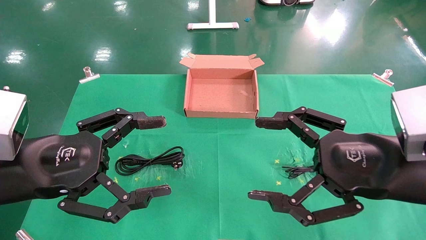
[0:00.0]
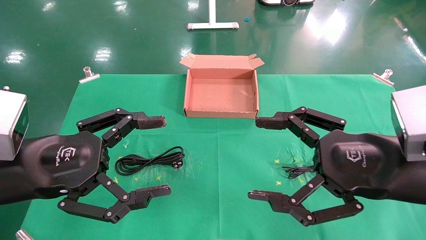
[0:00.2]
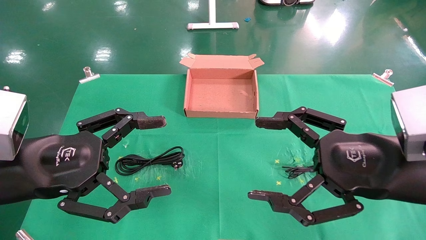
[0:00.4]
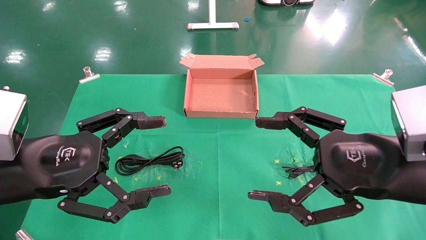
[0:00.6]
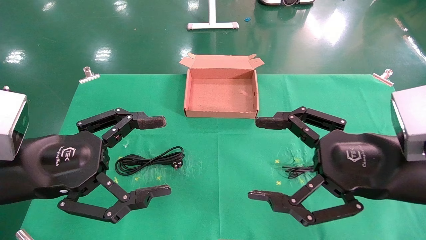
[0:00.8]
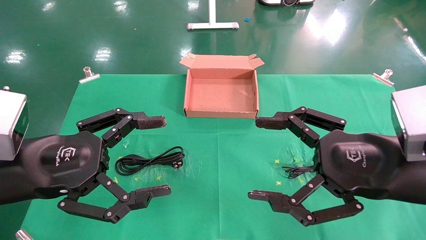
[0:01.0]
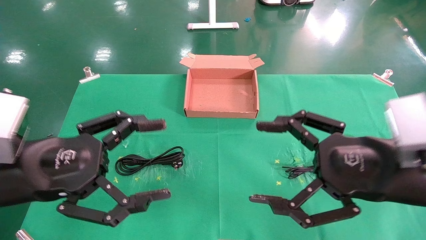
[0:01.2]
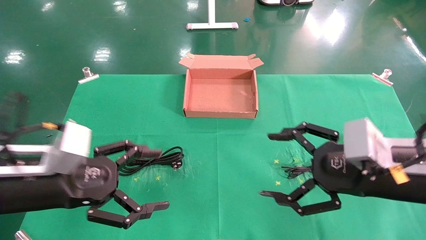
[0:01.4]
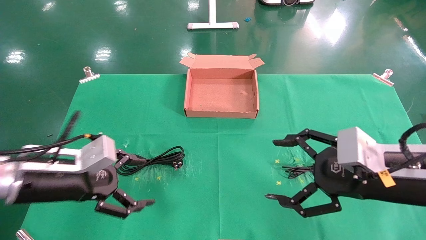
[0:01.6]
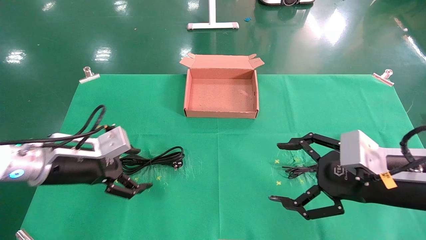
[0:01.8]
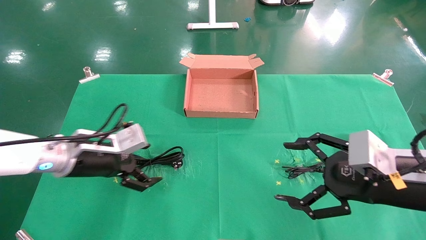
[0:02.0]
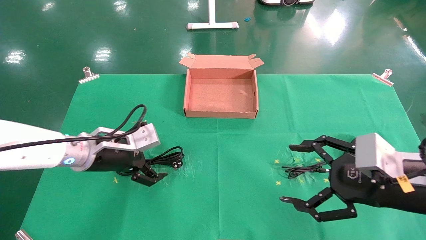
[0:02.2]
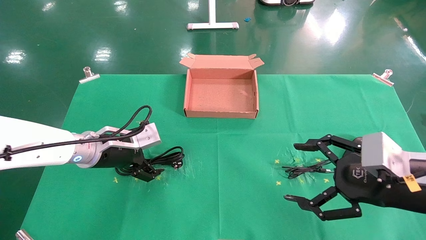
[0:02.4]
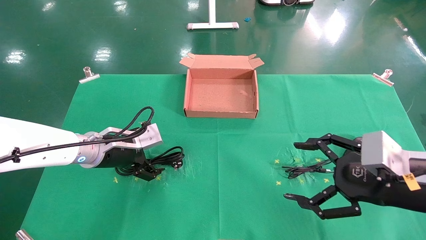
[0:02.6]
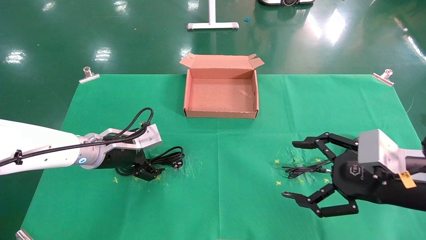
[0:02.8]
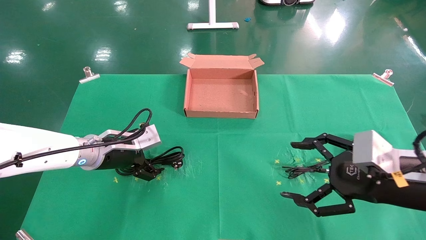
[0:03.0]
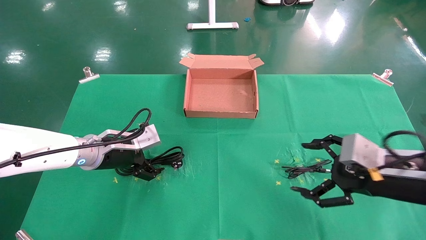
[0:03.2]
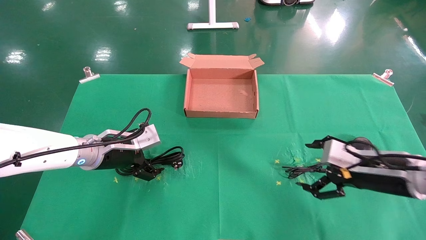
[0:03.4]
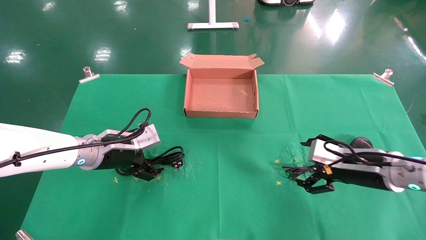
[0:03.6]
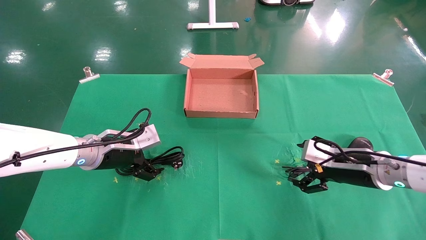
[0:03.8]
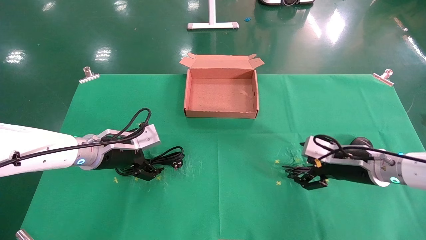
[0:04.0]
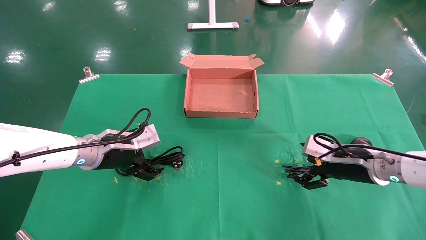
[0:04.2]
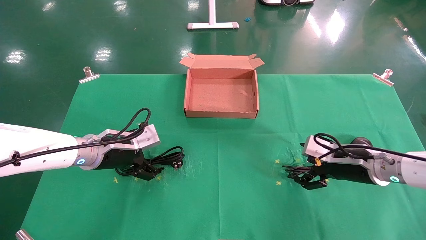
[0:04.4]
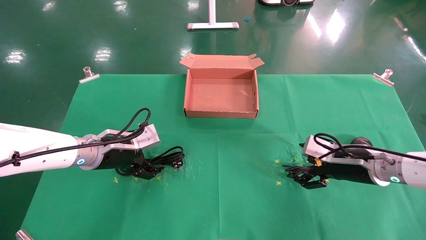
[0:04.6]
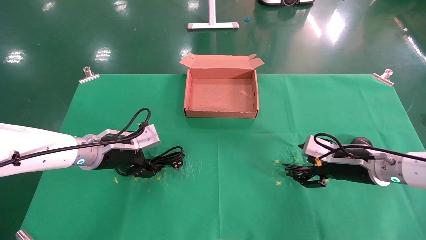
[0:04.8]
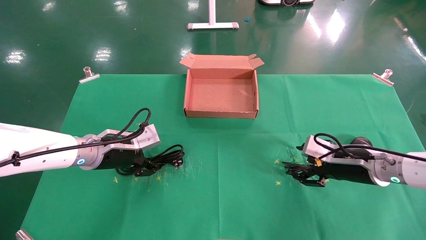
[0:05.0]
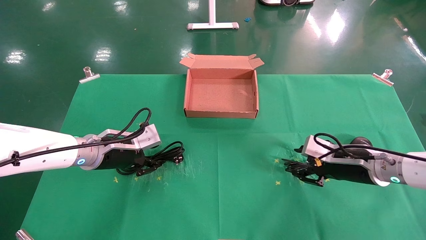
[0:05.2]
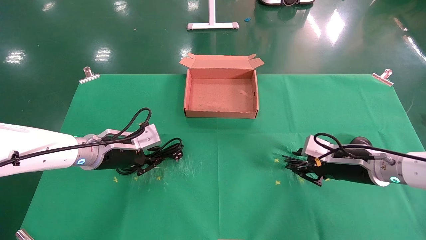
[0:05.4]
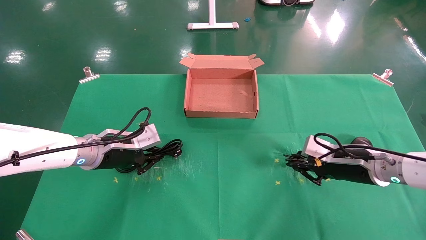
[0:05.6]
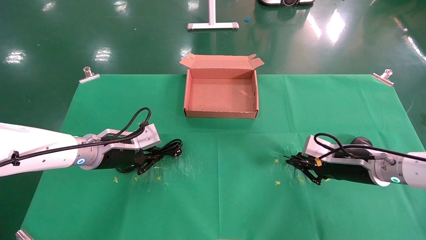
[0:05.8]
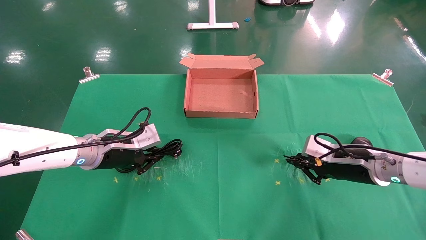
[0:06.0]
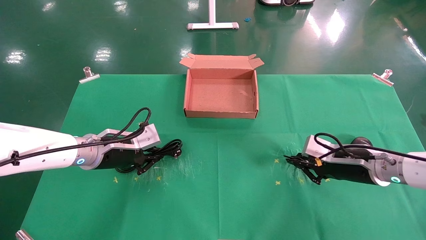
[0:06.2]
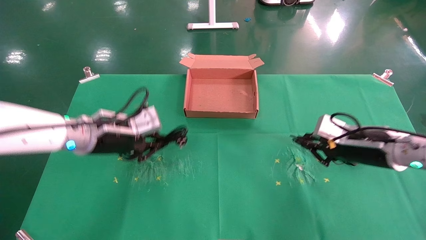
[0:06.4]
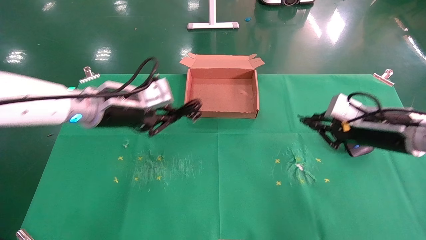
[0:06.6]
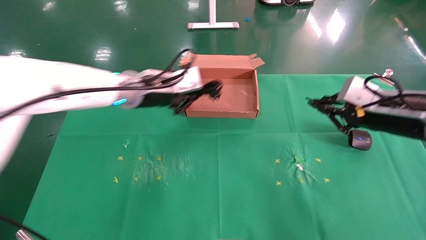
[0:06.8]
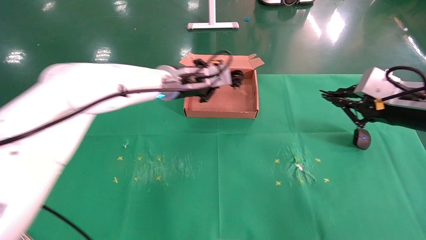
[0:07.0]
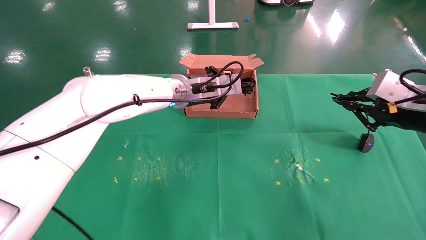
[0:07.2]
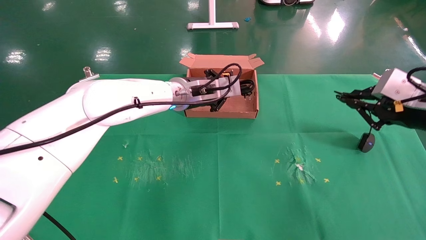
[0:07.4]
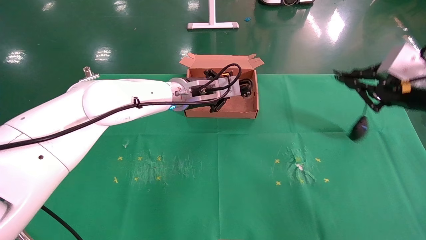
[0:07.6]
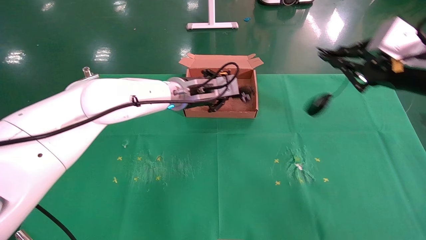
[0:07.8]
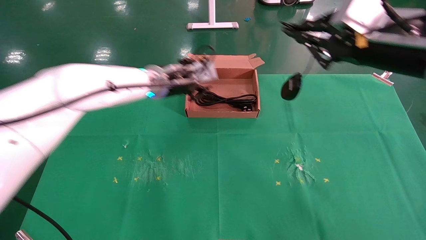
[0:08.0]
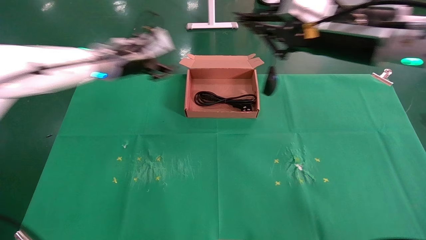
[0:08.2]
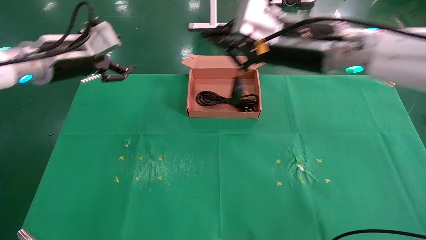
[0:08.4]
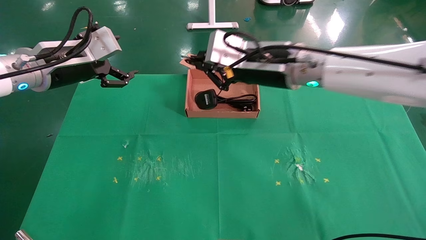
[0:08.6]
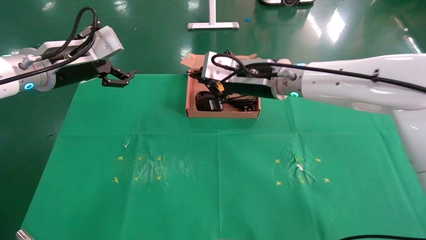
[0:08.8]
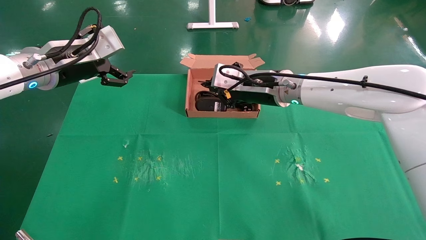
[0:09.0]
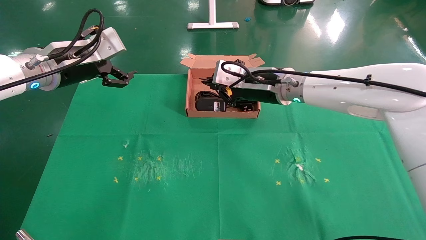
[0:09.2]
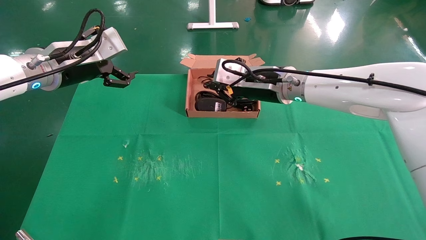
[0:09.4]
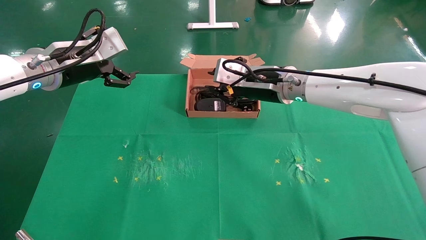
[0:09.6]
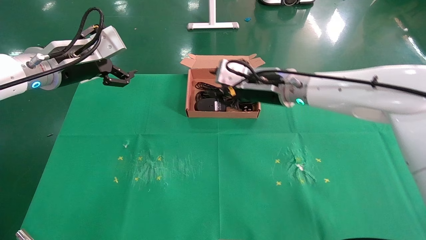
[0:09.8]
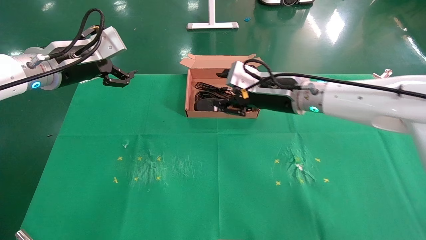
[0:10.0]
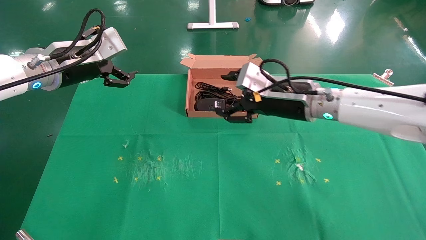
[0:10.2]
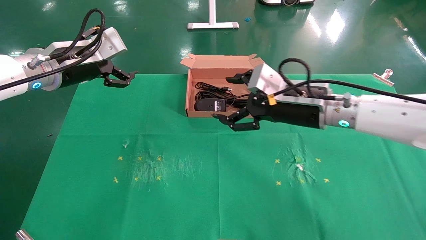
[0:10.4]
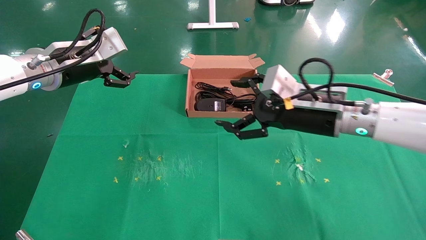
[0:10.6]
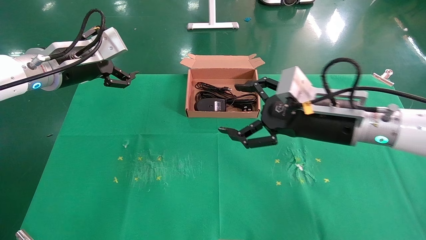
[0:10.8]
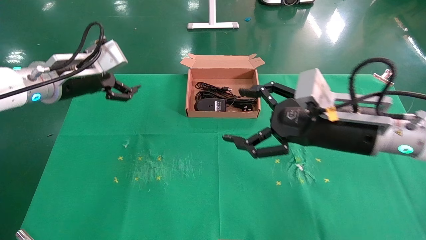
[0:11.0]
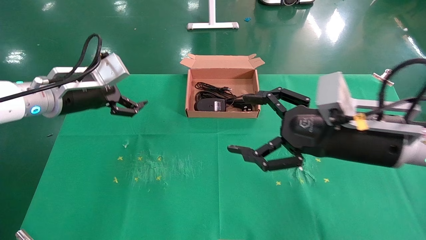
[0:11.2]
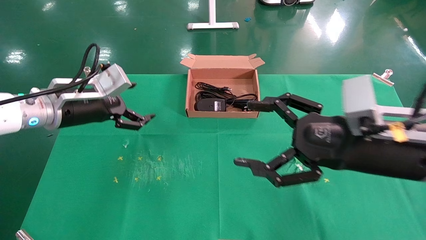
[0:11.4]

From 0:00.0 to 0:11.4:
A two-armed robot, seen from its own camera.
Task of the whole recording: grasp data cable left put into box grasp mouse right put into box.
Step, from 0:01.8 to 0:06.0: Simultaneously pick up the mouse and power cord from the accessory packaging area.
Step, from 0:06.2 to 0:09.4: Place the mouse and power cord into the box.
From 0:00.0 to 0:01.4: The left gripper heads downward, covering about 5 cm.
From 0:01.4 to 0:02.8: The left gripper is displaced forward by about 15 cm.
From 0:02.8 to 0:04.2: The right gripper heads forward and downward, covering some 15 cm.
From 0:04.2 to 0:05.6: The left gripper closes; the right gripper closes up.
From 0:05.6 to 0:07.2: The left gripper goes roughly 20 cm to the right, upward and forward, while the right gripper shifts approximately 15 cm upward, to the right and backward.
From 0:07.2 to 0:08.6: Both grippers travel together to the left, some 20 cm. The left gripper opens its fingers.
From 0:08.6 to 0:10.0: The right gripper shifts roughly 5 cm downward, and opens up.
From 0:10.0 to 0:11.4: The right gripper heads backward and to the right, covering some 20 cm, and opens up. The left gripper is displaced downward by approximately 5 cm.

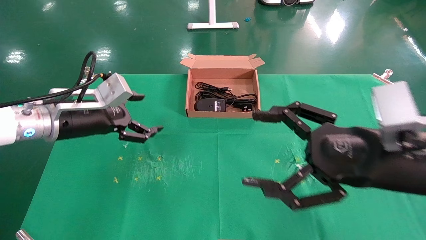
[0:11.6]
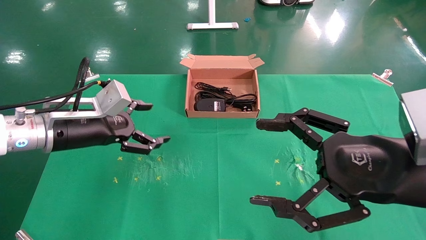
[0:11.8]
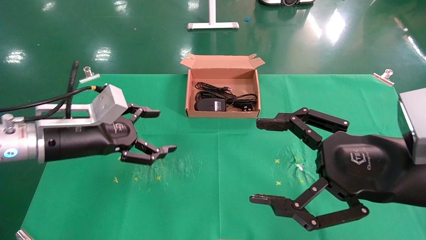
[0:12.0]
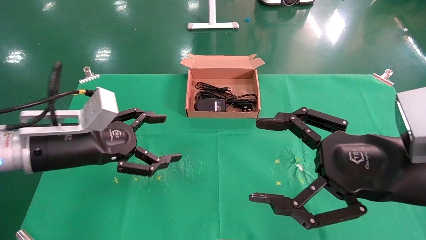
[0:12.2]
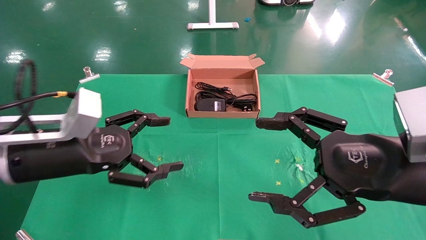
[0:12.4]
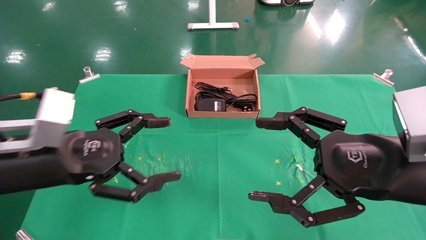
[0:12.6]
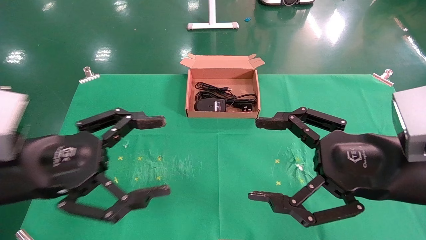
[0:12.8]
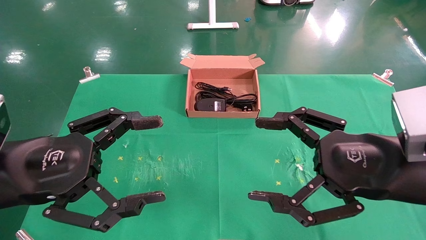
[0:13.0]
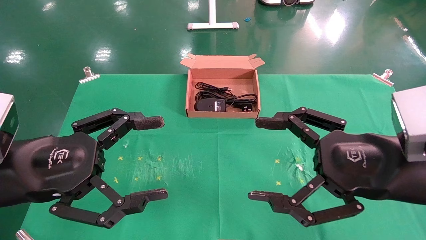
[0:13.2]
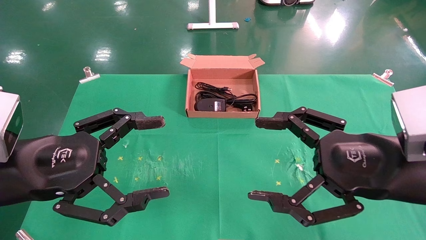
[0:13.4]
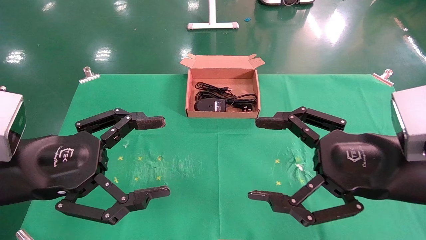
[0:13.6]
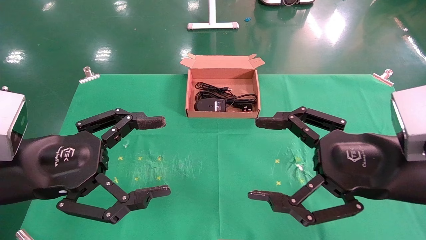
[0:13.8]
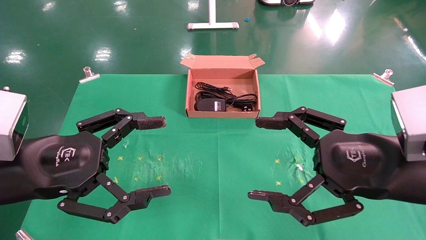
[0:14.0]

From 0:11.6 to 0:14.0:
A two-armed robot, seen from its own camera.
Task of the whole recording: grasp data cable left put into box grasp mouse right put into box.
From 0:11.6 to 0:12.8: The left gripper is displaced backward by roughly 15 cm.
From 0:12.8 to 0:14.0: The two grippers keep their place.
